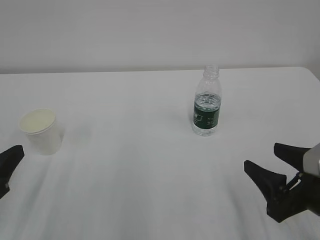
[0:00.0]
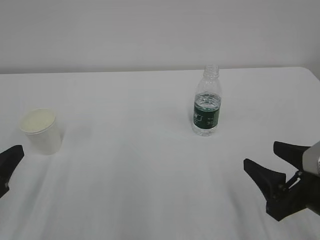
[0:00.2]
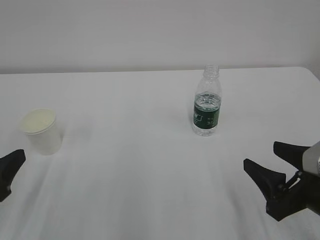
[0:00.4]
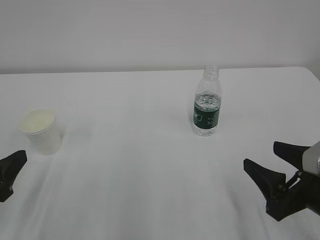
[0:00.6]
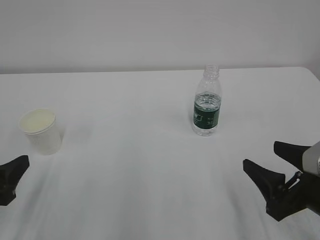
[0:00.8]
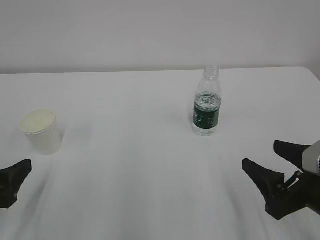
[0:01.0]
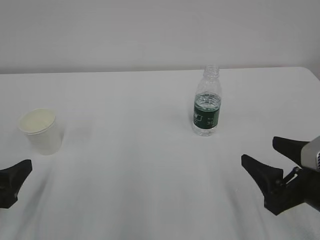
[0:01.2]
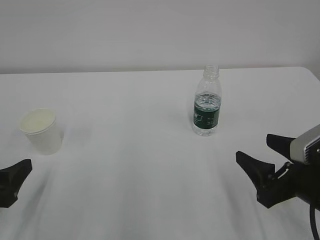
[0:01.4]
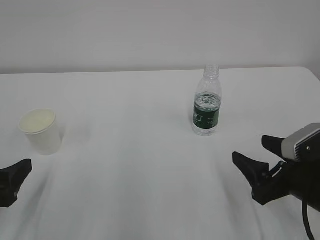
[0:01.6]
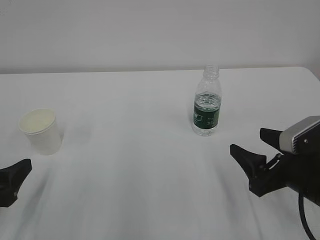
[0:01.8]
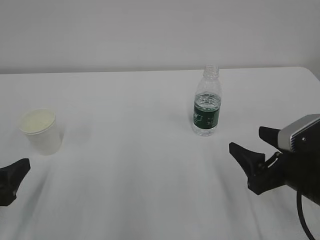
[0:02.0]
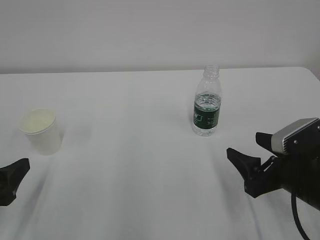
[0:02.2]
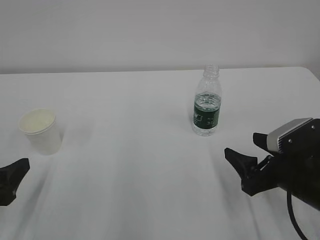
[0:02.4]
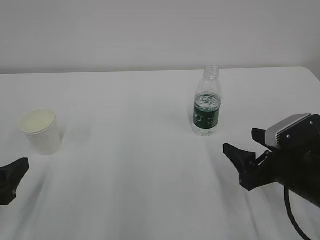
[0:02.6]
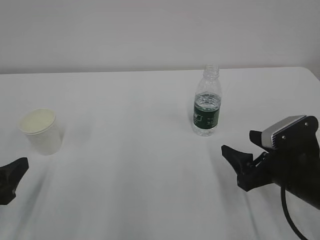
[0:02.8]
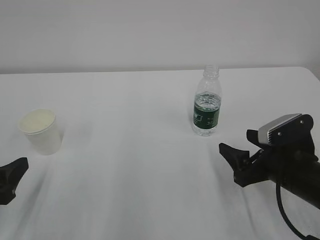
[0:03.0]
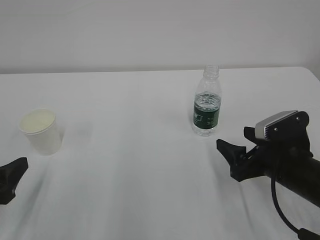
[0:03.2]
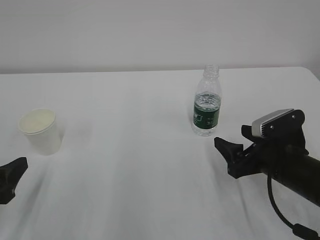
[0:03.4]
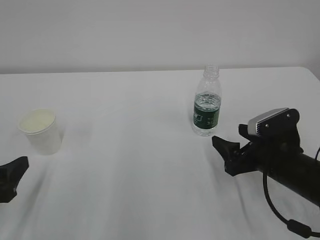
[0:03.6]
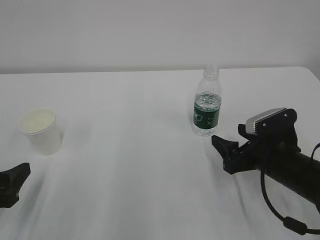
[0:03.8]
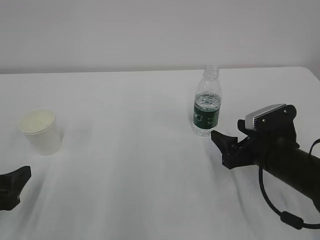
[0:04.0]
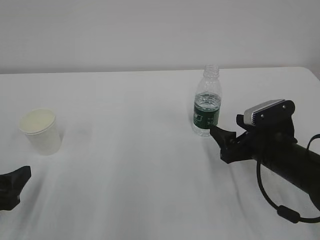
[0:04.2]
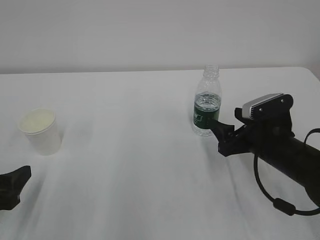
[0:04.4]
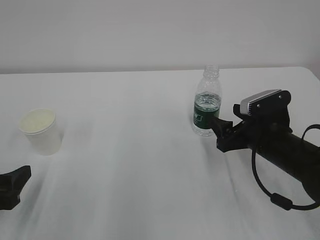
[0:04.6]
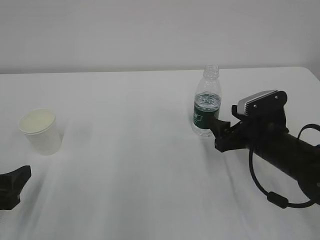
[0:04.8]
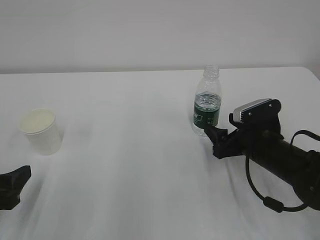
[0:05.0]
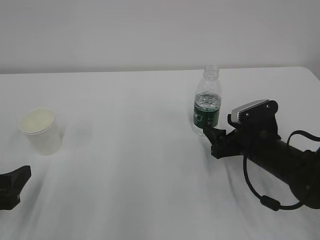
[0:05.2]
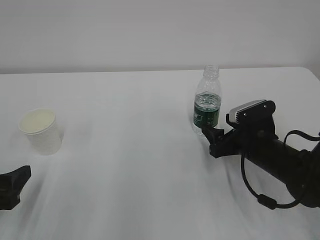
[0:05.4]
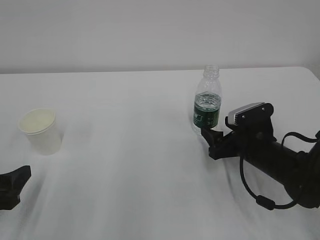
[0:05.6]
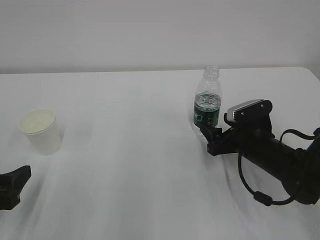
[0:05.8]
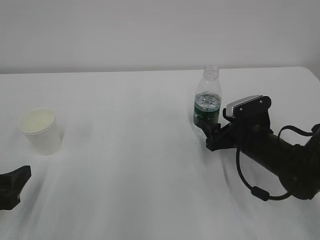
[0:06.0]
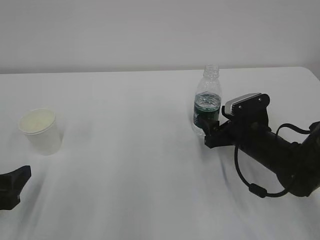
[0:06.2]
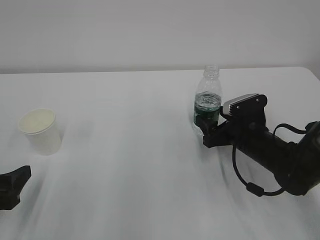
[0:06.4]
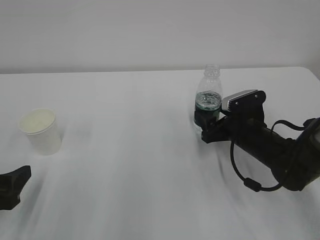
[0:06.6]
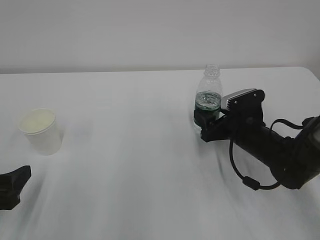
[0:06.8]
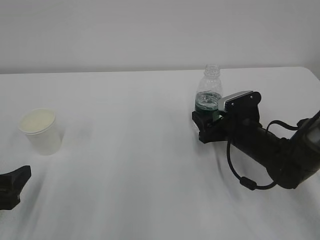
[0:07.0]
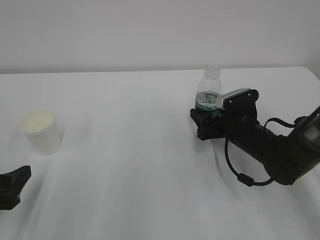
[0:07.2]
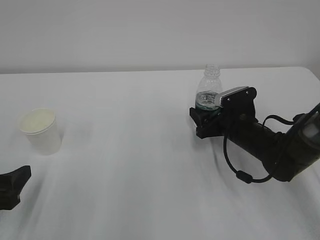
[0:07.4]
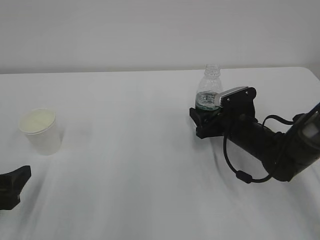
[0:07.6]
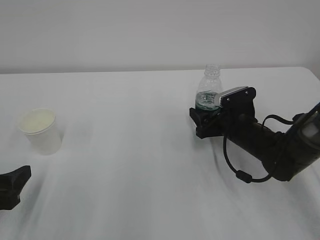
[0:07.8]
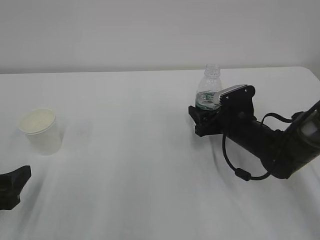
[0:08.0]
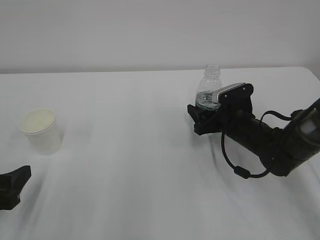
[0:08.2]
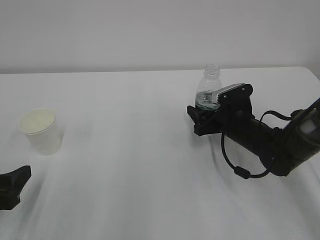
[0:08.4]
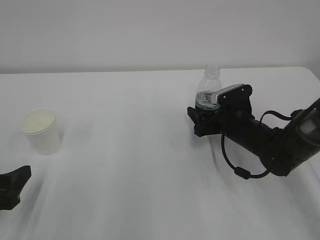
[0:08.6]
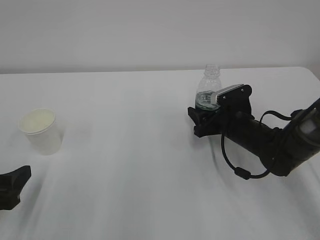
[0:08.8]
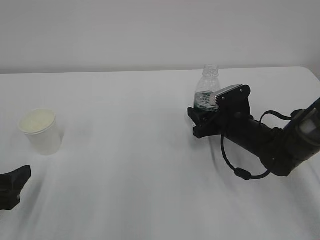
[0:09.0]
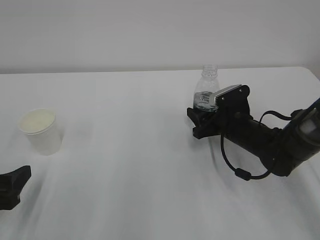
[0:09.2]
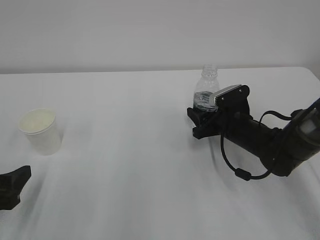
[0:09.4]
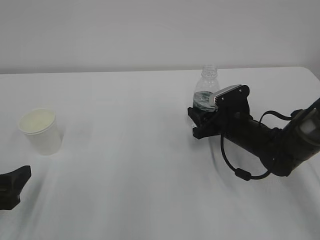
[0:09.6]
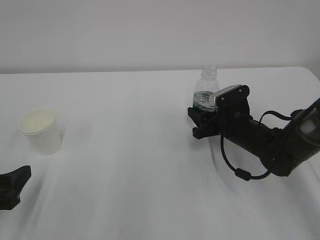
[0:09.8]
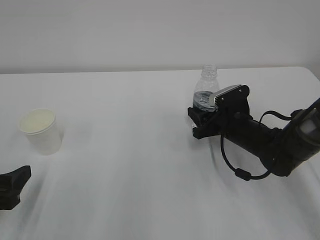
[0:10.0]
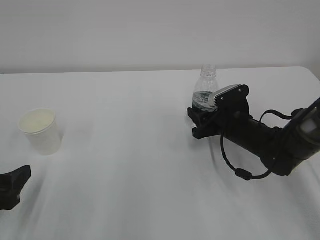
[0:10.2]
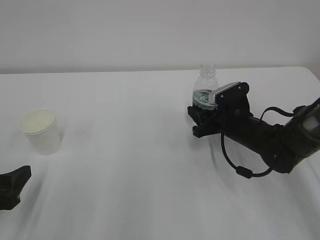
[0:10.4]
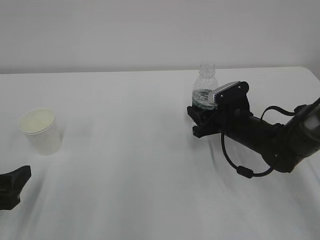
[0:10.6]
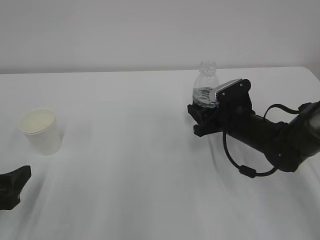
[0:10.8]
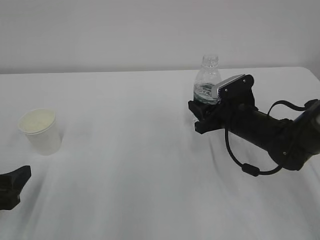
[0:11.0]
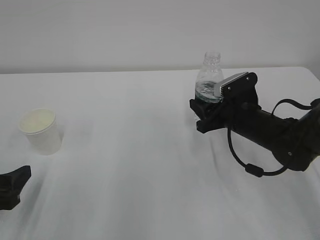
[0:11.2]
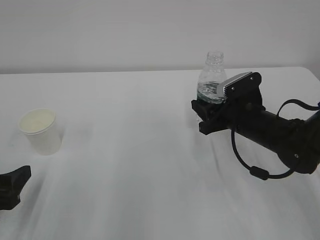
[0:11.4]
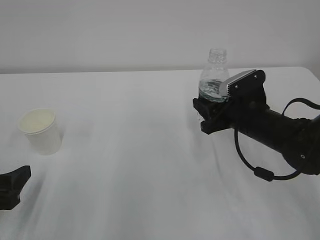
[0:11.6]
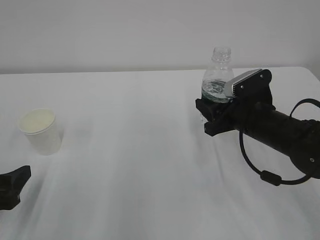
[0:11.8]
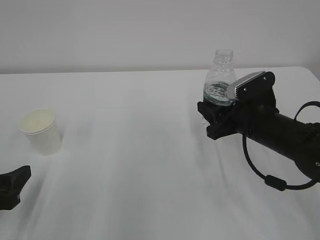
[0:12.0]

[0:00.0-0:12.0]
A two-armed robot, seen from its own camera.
0:00.0 to 0:01.6: The left gripper opens.
0:01.6 to 0:03.0: The grippers stay close to where they were, moving slightly.
0:03.0 to 0:04.4: The right gripper travels forward by roughly 5 cm.
0:04.4 to 0:06.0: The right gripper changes place by some 5 cm.
0:06.0 to 0:07.6: The grippers make only small movements.
0:07.6 to 0:09.0: The right gripper closes up.
0:09.0 to 0:10.4: Both grippers stay about where they are.
0:10.4 to 0:12.0: The right gripper heads upward and backward, covering about 10 cm.

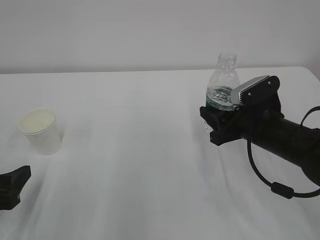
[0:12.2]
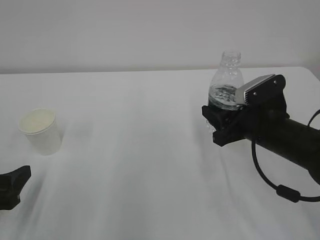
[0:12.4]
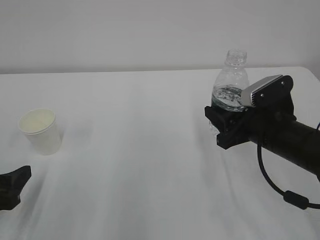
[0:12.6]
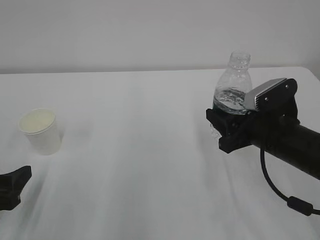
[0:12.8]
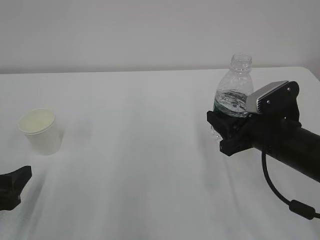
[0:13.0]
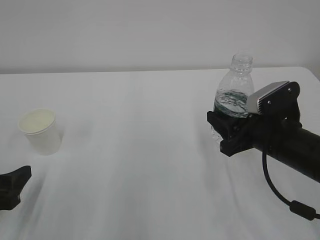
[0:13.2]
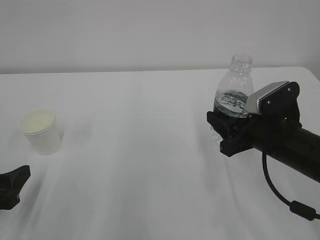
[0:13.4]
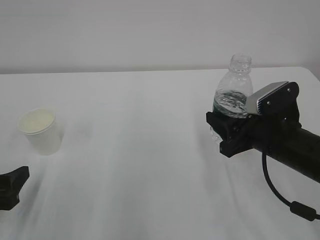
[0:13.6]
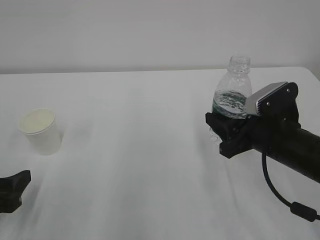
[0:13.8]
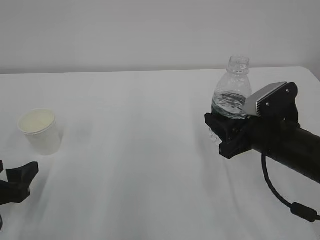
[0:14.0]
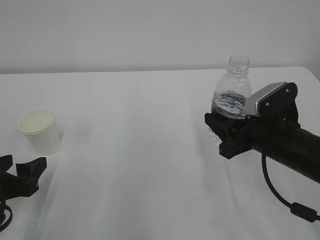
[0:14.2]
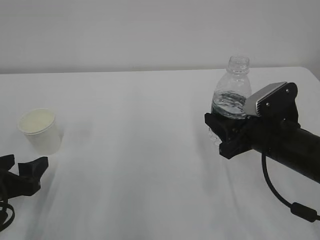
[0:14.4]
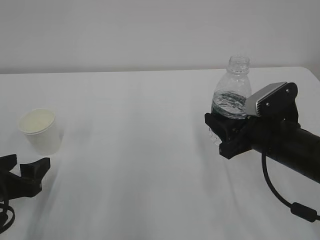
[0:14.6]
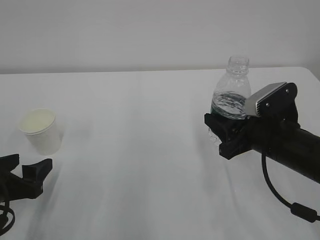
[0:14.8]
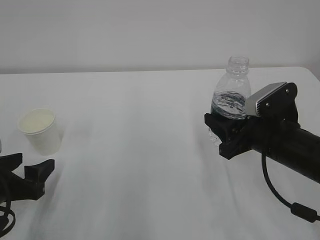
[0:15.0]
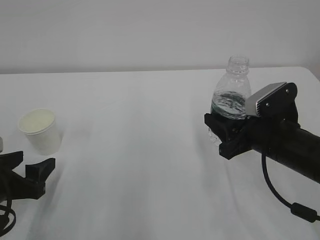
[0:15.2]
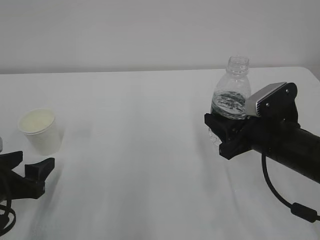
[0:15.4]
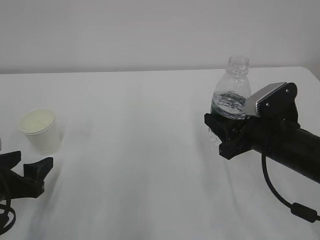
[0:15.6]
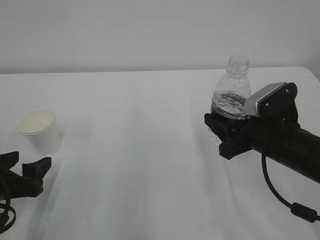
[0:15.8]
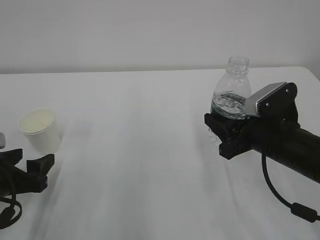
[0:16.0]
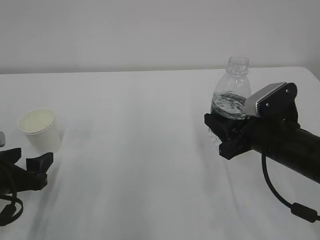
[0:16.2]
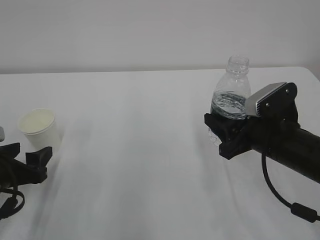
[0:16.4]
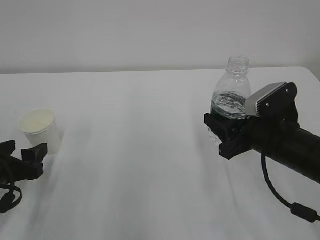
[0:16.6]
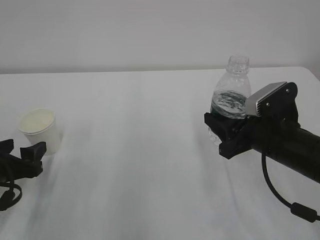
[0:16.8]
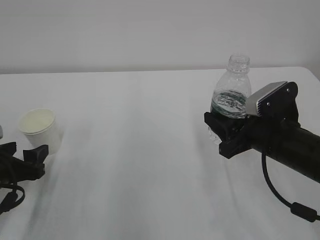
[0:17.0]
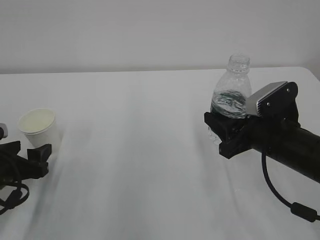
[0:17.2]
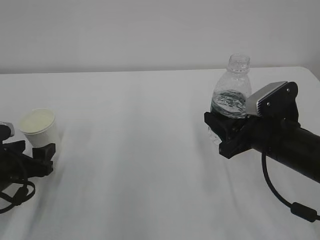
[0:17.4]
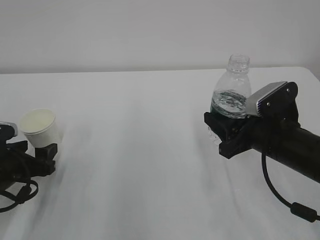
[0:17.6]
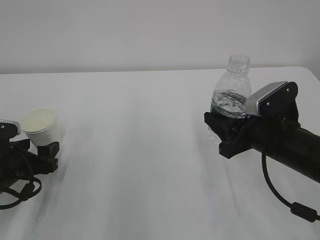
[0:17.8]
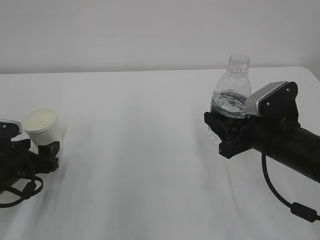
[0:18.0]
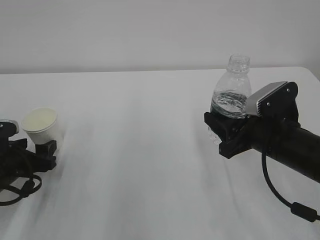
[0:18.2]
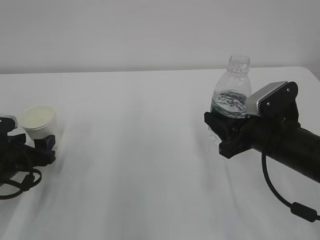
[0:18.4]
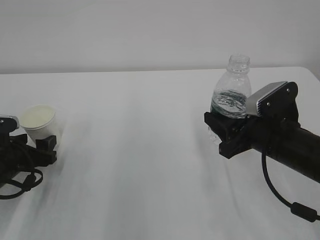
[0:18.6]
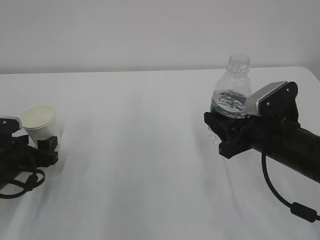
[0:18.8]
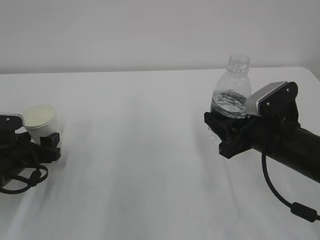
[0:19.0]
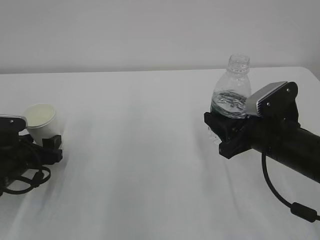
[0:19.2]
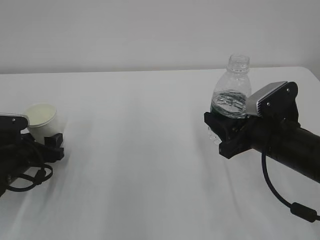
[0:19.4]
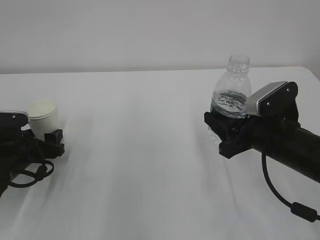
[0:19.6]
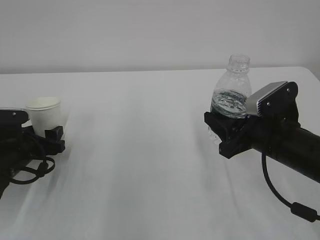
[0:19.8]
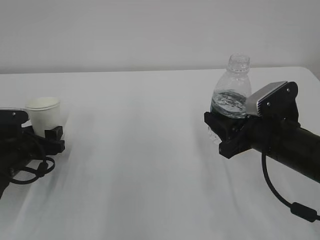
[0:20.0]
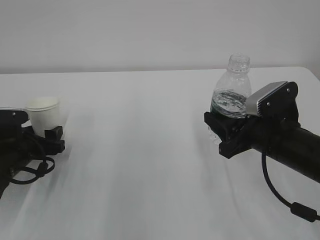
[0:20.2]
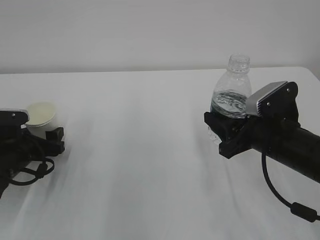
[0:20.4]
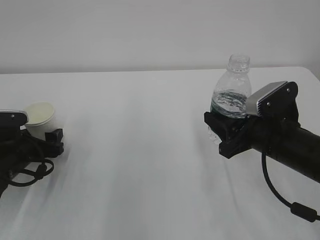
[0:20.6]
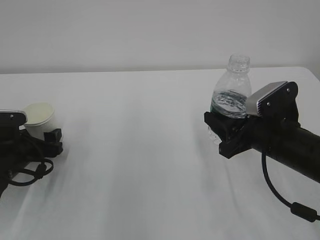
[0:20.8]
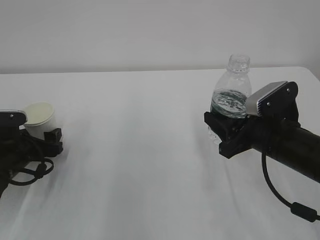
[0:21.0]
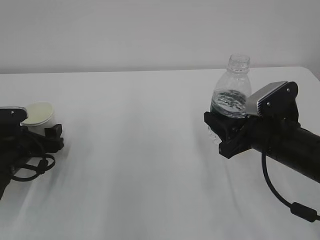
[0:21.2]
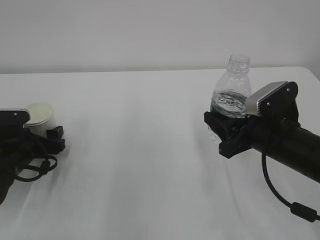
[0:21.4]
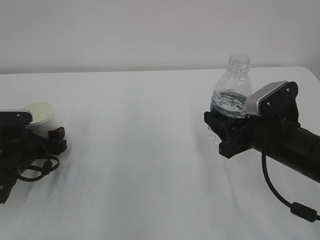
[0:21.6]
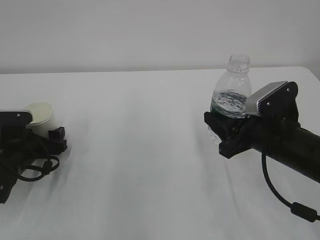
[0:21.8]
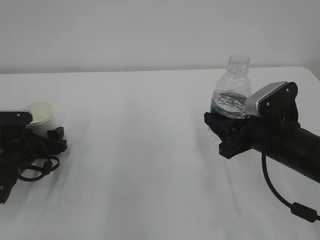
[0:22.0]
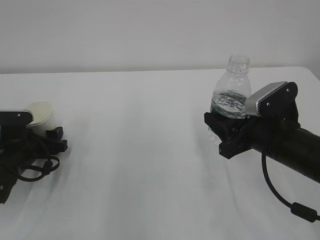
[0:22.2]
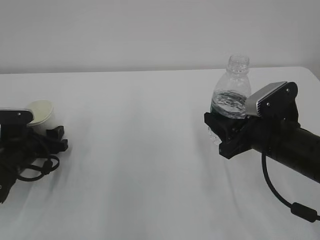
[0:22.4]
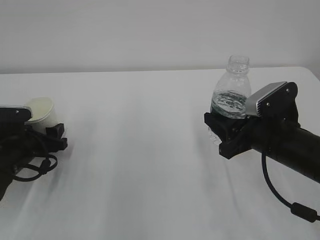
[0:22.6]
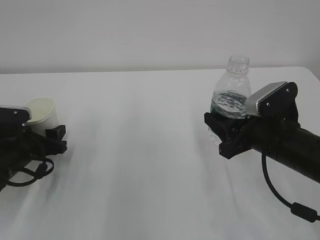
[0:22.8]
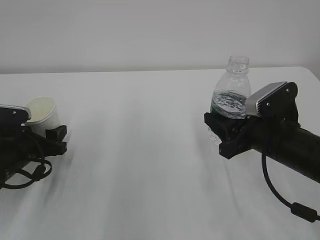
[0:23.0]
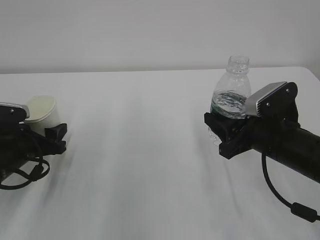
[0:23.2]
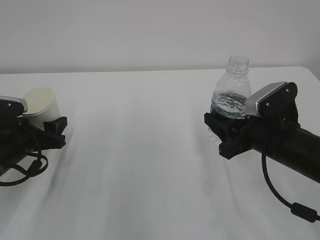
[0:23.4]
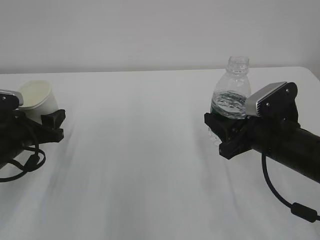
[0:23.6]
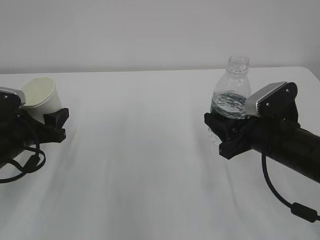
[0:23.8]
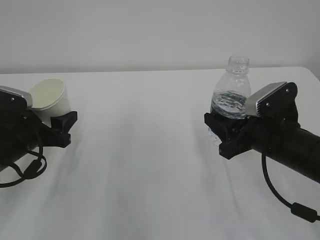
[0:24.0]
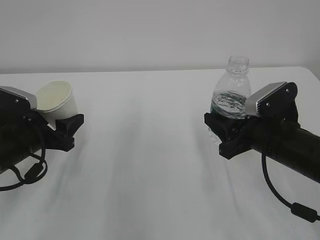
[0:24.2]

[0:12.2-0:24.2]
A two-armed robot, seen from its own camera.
0:12.2 to 0:15.2: The grippers make only small movements.
0:15.2 to 0:16.6: The grippers make only small movements.
0:16.6 to 0:18.2: There are only small adjustments of the grippers.
0:18.2 to 0:19.8: The grippers move only a little.
0:19.8 to 0:21.2: The left gripper opens up.
0:21.2 to 0:22.6: The left gripper closes its fingers.
0:22.6 to 0:24.2: The left gripper heads upward, covering roughly 5 cm.
